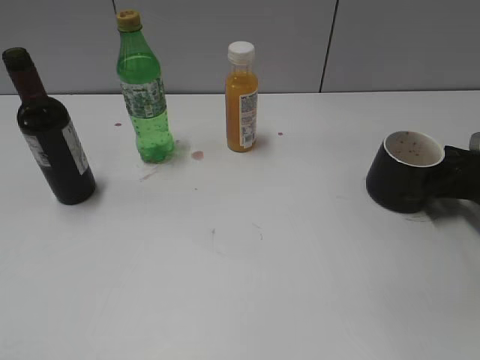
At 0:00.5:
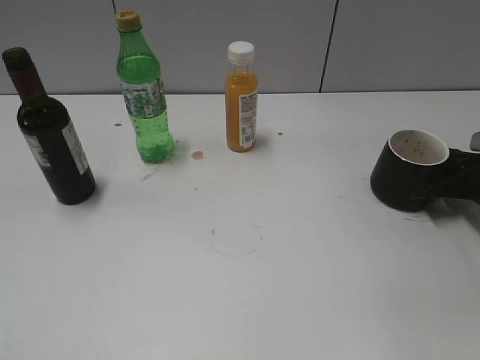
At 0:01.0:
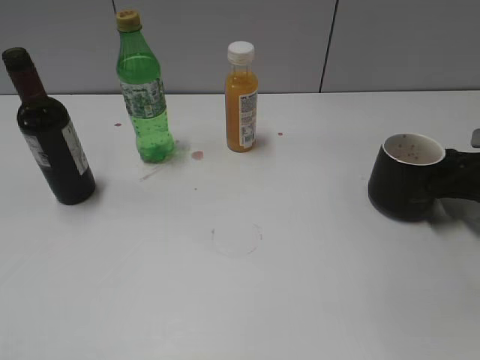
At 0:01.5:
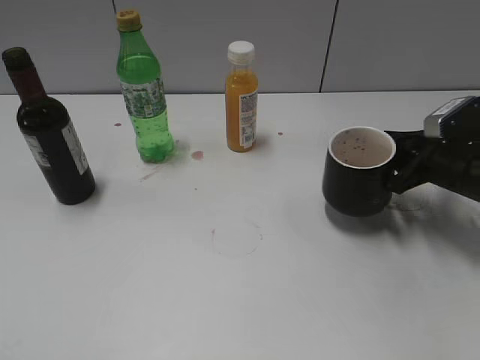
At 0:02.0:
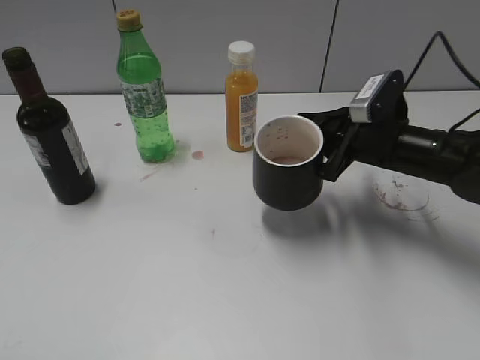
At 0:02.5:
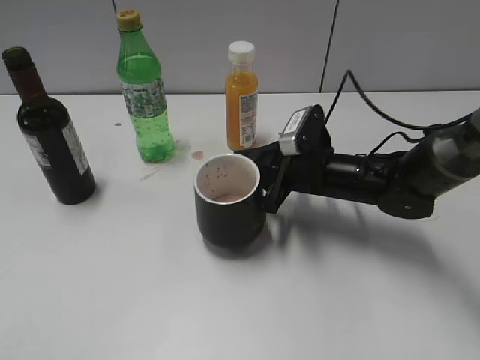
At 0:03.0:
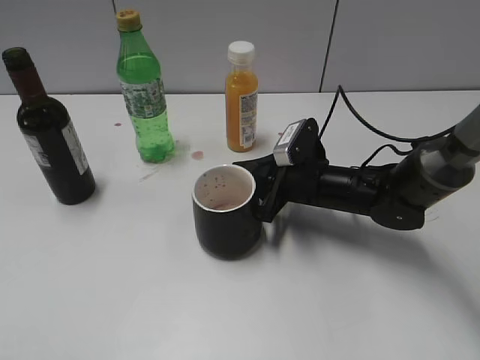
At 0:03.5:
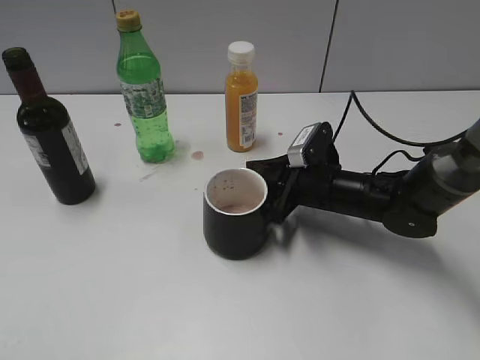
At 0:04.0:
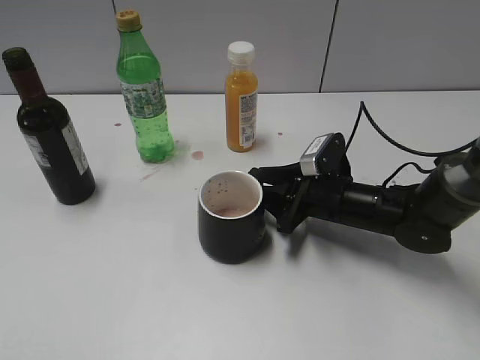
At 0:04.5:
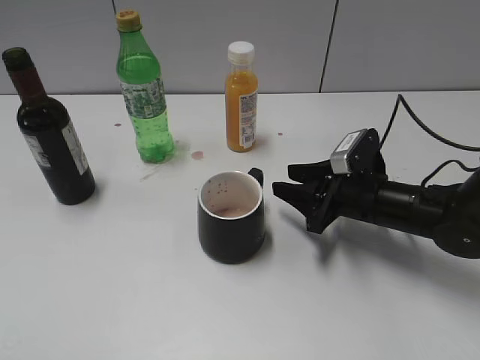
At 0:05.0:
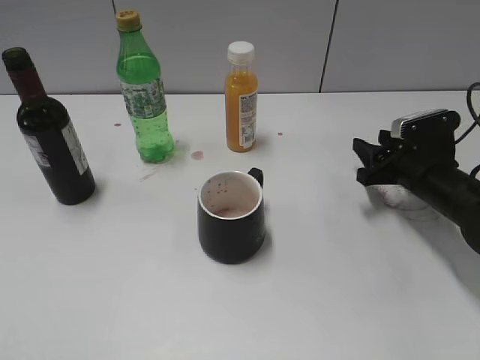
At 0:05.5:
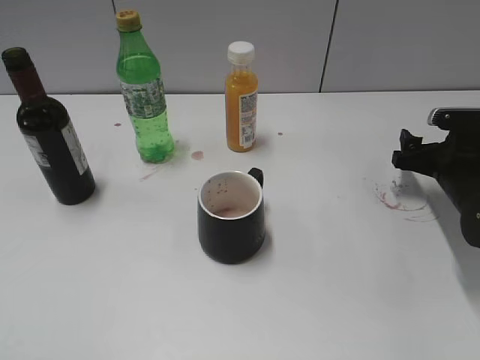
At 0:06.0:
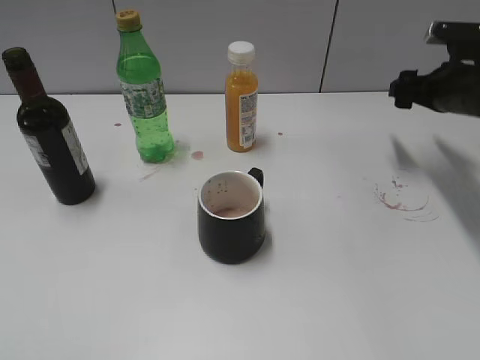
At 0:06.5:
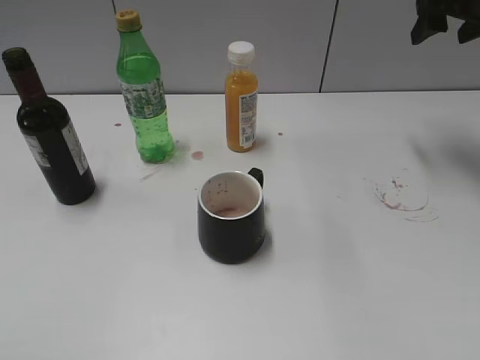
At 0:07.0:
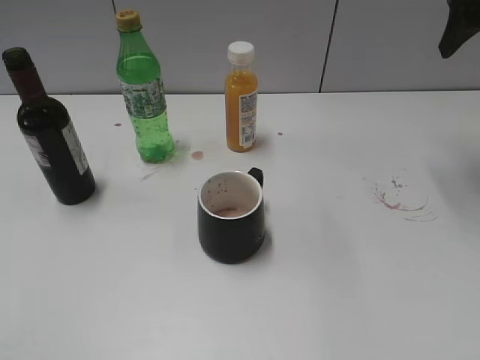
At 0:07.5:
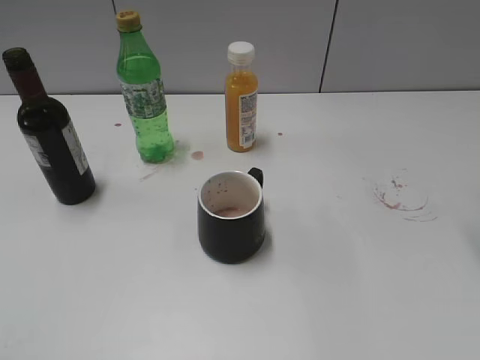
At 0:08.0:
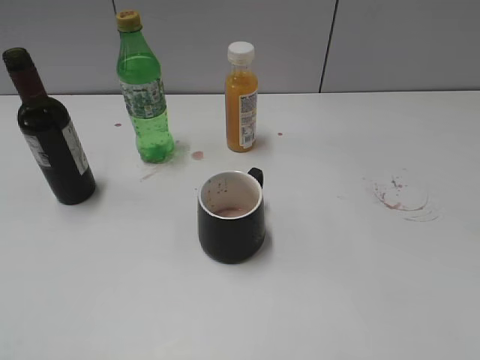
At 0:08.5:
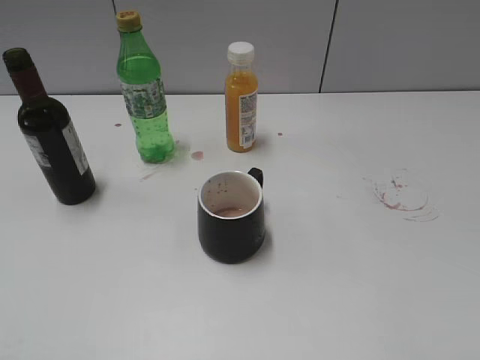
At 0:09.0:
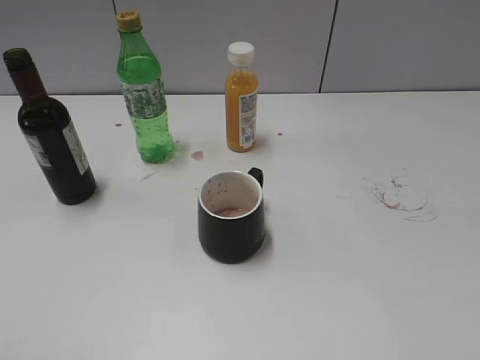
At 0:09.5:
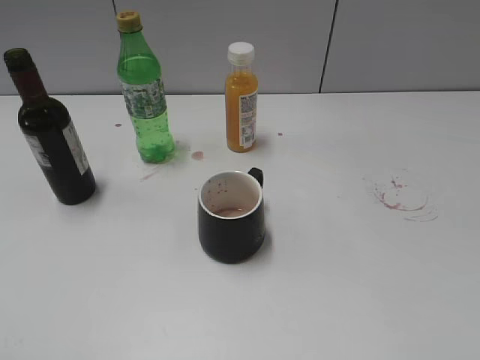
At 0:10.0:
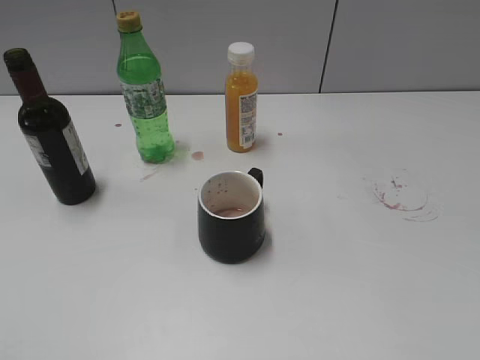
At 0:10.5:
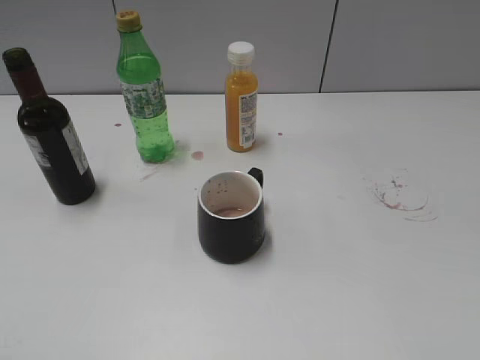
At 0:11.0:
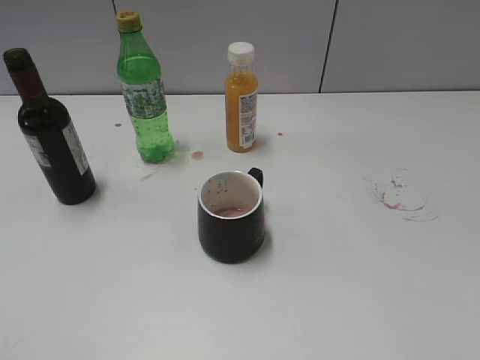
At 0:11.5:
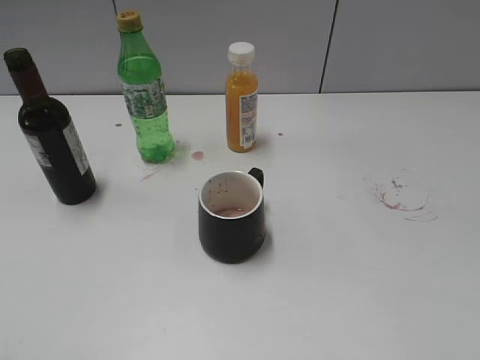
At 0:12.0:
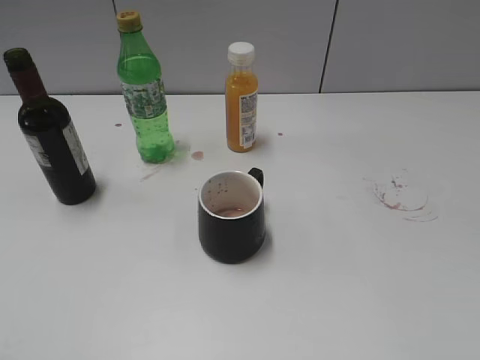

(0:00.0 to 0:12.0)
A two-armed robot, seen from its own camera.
Step, 0:01.0 - 0:04.0: Place the black cup in the center of view with right gripper.
0:00.0 - 0:02.0: The right gripper heads to the left, covering approximately 15 cm.
0:02.0 - 0:04.0: The right gripper moves downward, about 10 cm, and opens.
0:04.0 - 0:06.0: The right gripper shifts some 20 cm to the right, upward and forward, and opens up.
0:06.0 - 0:08.0: The right gripper moves backward and upward, roughly 30 cm.
0:10.0 - 0:12.0: The two grippers keep their place.

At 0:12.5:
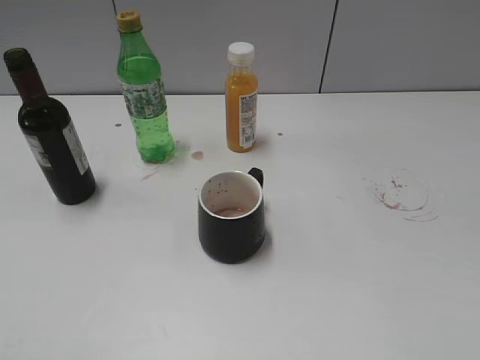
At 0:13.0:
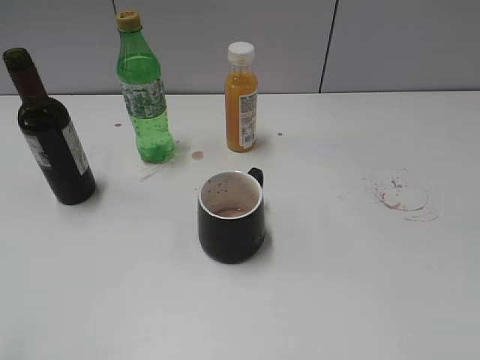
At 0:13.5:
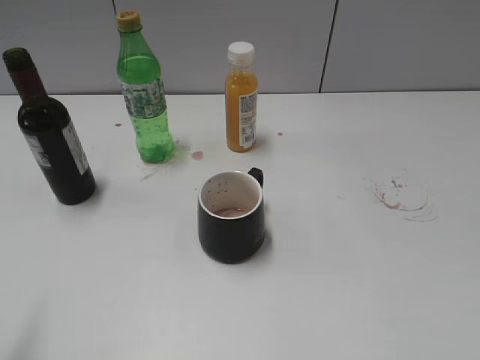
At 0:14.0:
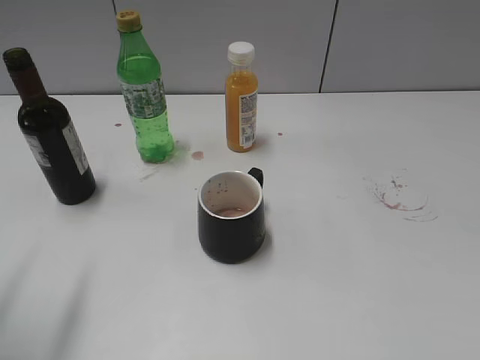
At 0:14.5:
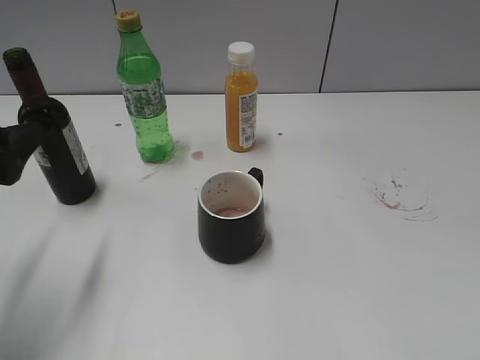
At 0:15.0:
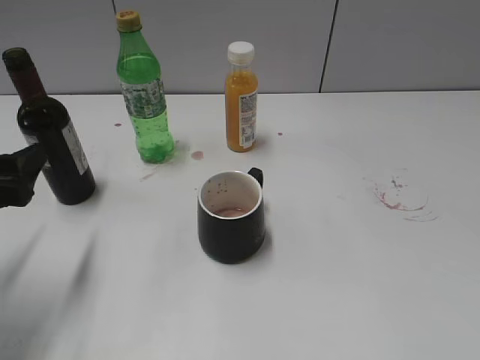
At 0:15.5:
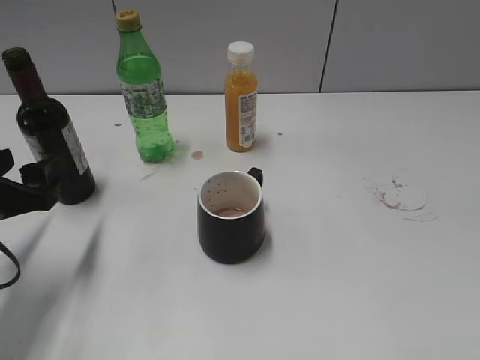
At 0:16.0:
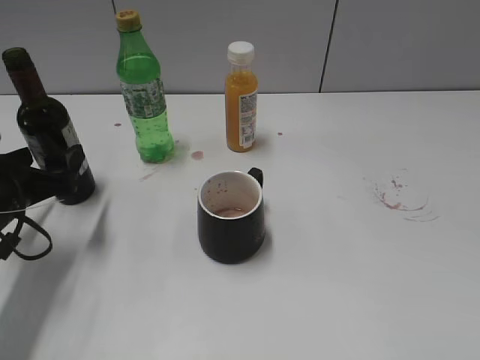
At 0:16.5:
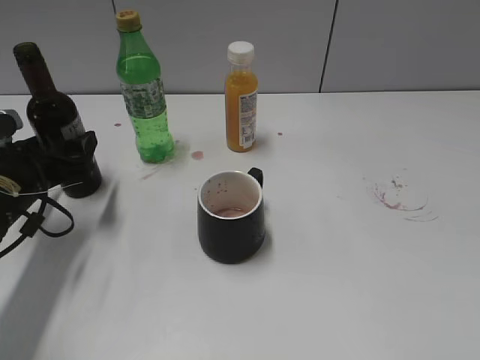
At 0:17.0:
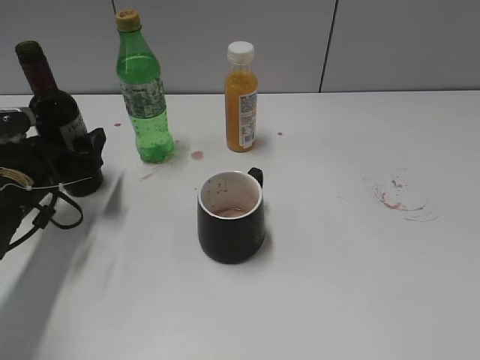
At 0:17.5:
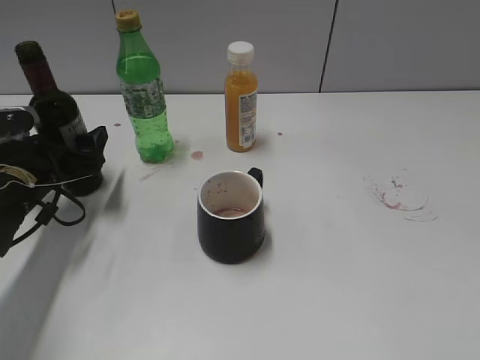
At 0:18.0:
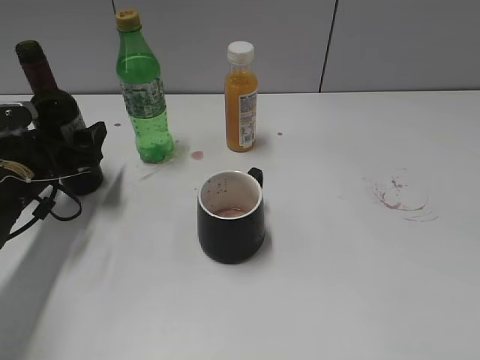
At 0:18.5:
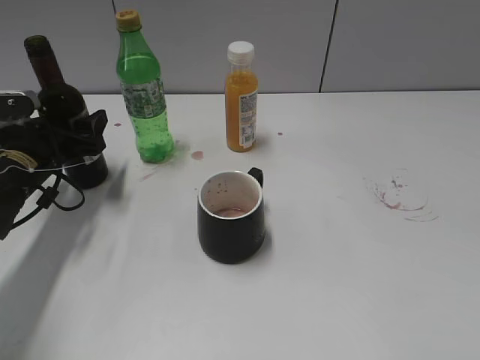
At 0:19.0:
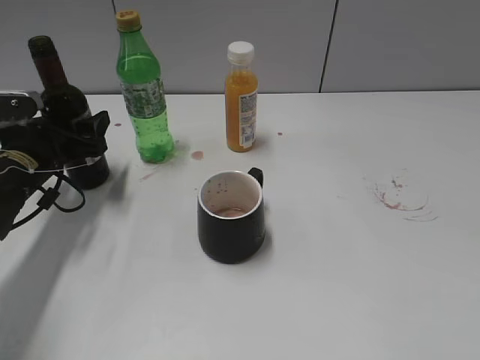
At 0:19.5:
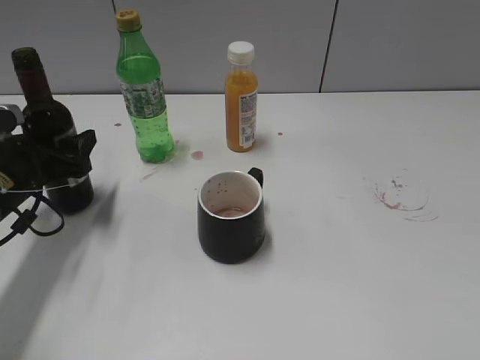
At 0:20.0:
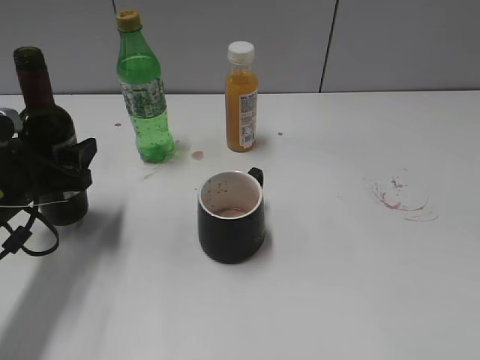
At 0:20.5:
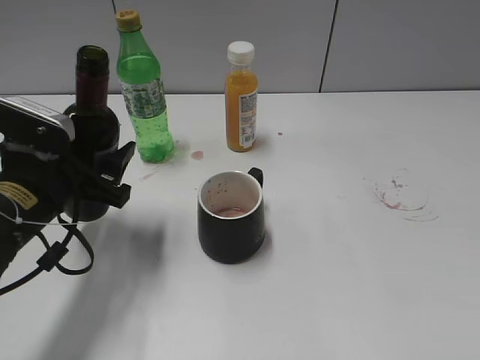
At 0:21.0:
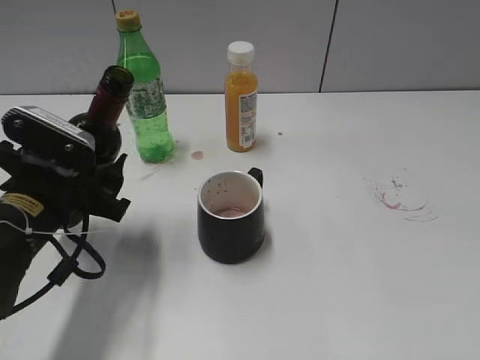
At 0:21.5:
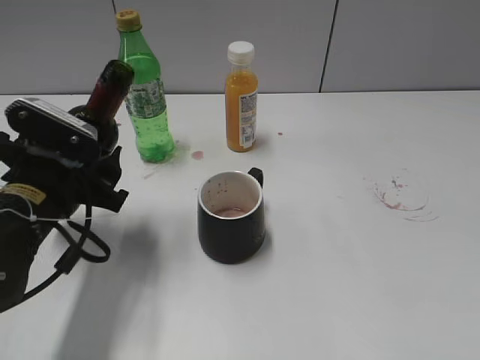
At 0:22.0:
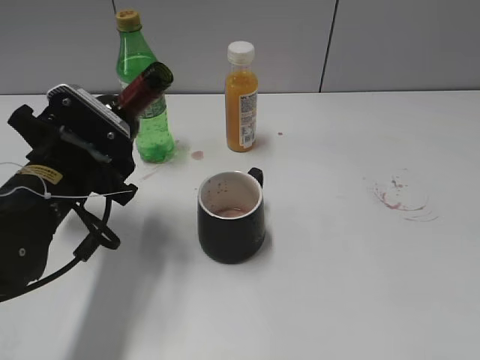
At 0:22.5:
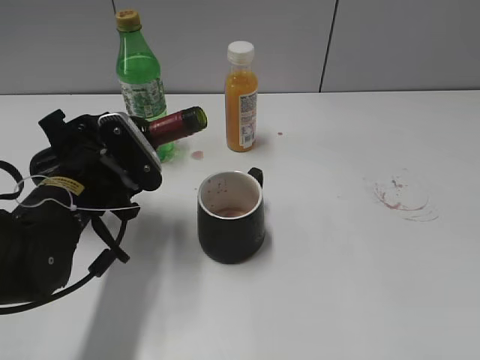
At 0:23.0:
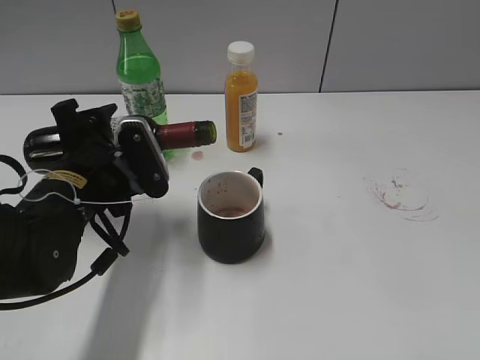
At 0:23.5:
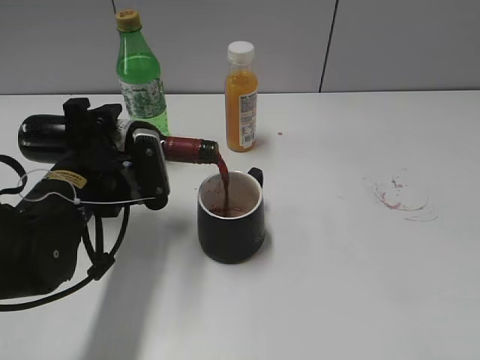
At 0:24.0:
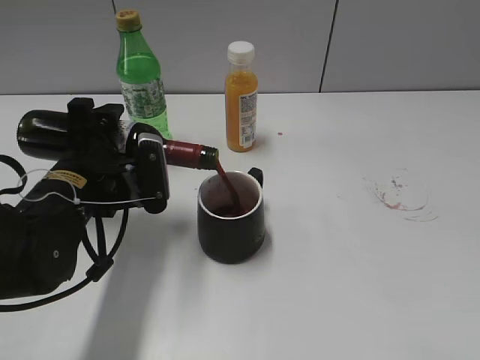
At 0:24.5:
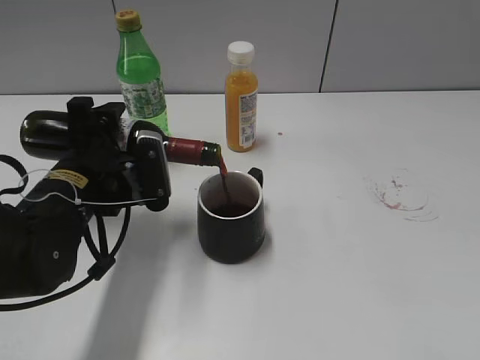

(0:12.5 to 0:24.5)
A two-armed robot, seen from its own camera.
Step, 0:12.5 - 0:19.0: Grasp the bottle with red wine with left gripper.
0:12.5 - 0:14.5: The left gripper shifts some 25 cm forward and downward, and opens up.
0:14.5 - 0:16.5: The left gripper moves downward and forward, about 15 cm.
0:16.5 - 0:18.5: The left gripper closes.
0:18.5 - 0:20.5: The left gripper shifts about 10 cm backward and to the right.

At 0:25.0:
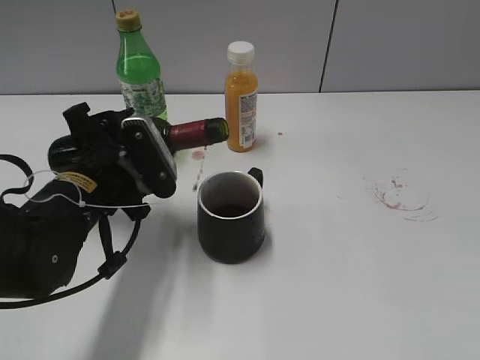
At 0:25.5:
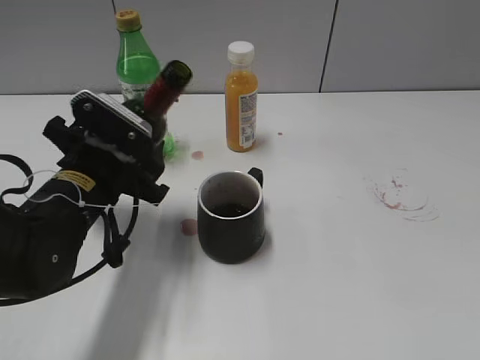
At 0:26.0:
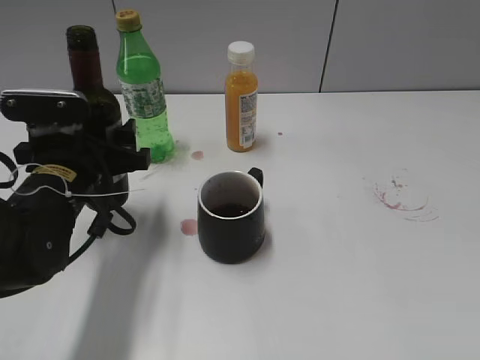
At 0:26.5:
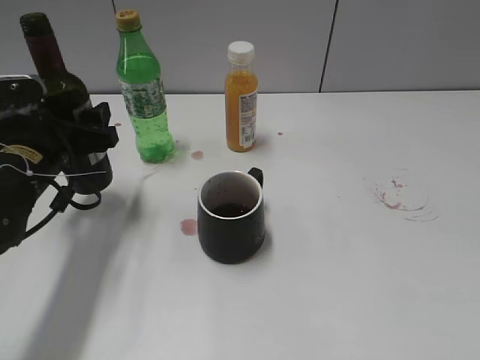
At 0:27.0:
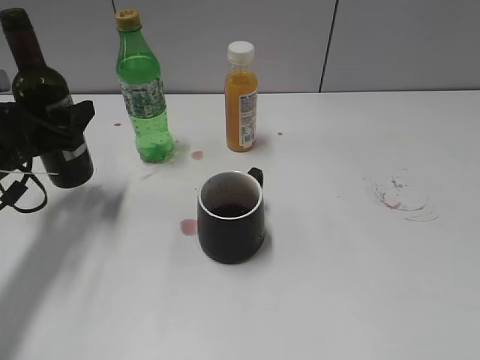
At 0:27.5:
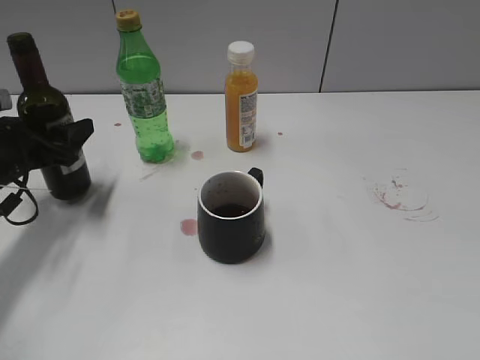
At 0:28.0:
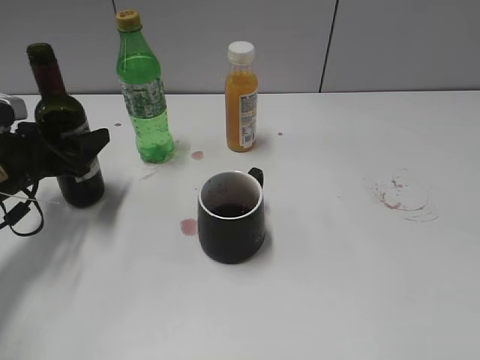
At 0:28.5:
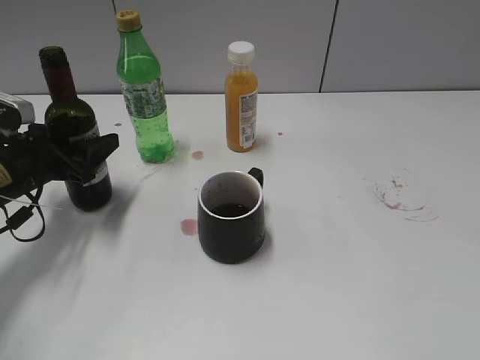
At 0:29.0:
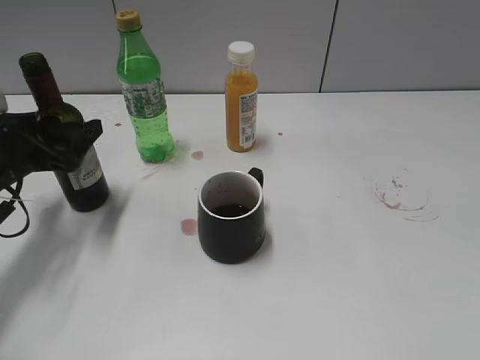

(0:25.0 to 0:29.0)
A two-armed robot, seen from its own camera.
Step, 0:25.5 - 0:29.0: Place the red wine bottle on the table with left gripper.
0:25.0 - 0:27.0: The left gripper travels to the left and forward by some 15 cm.
0:27.0 - 0:29.0: The left gripper opens its fingers.
